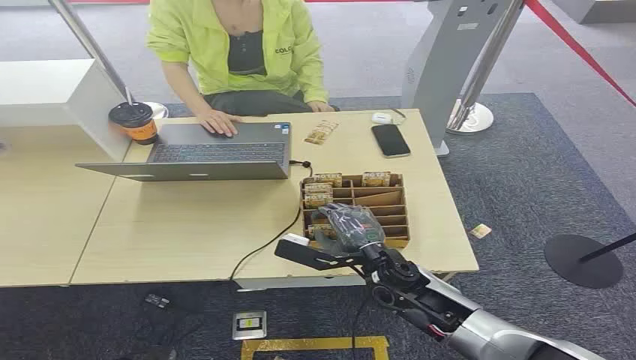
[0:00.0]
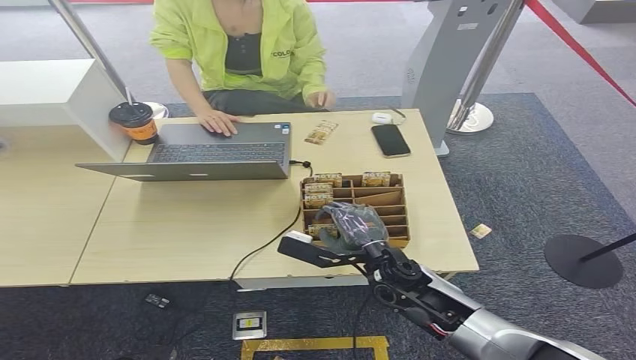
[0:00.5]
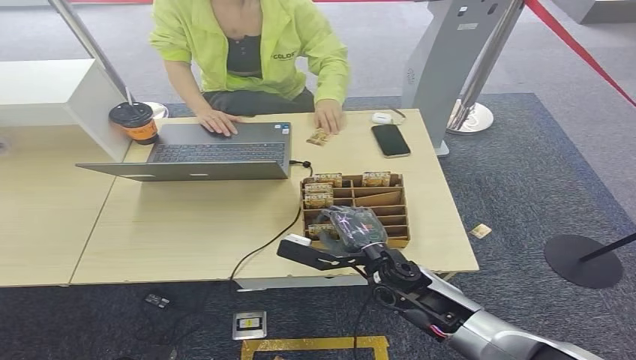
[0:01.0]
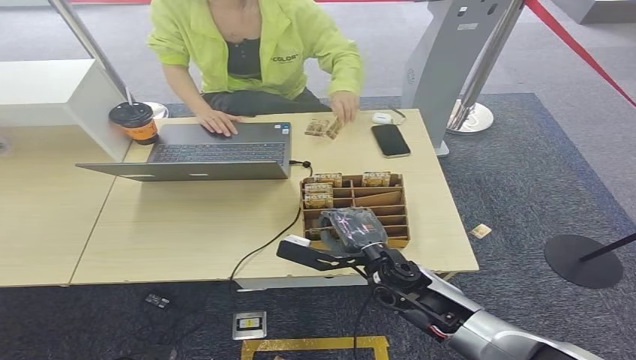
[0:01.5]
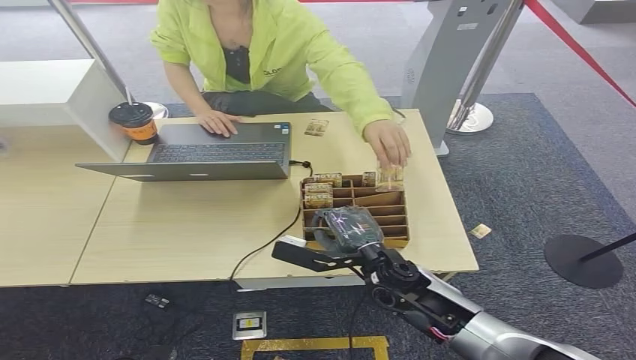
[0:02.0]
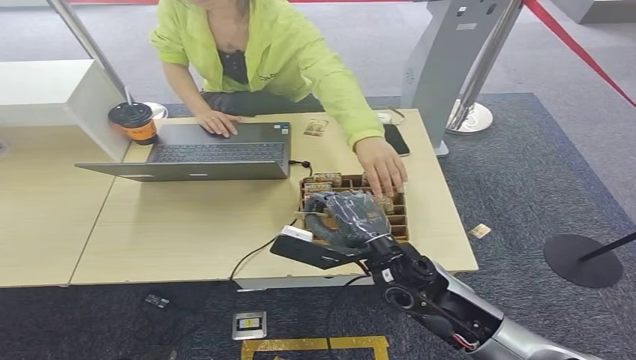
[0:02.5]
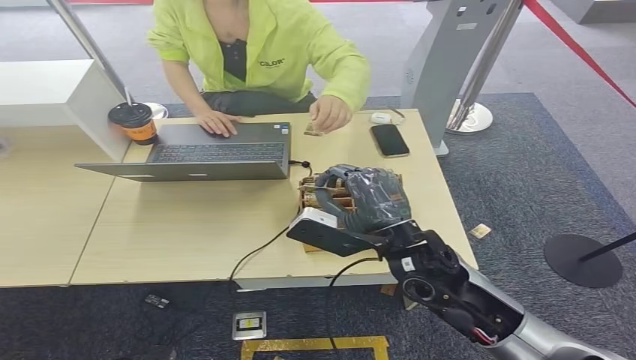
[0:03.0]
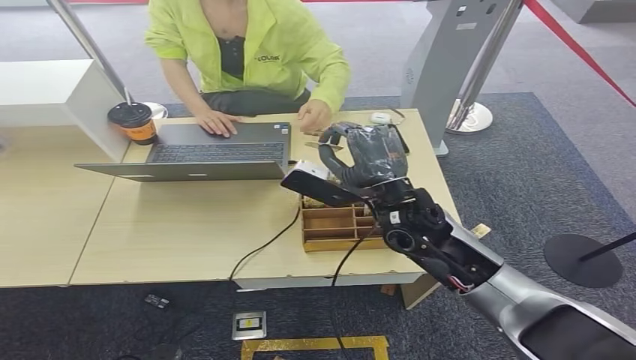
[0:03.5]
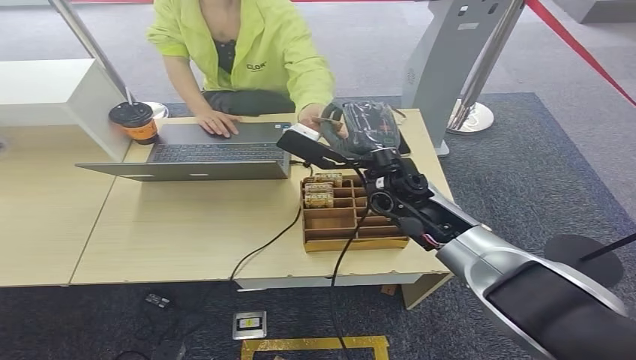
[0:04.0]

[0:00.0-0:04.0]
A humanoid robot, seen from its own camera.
Step, 0:00.0 to 0:02.5: Pick up the key card from the card box.
Step, 0:03.0 to 0:04.0: Hand the key card to the target.
0:02.0 to 0:04.0: The right hand goes some 20 cm upward and forward.
